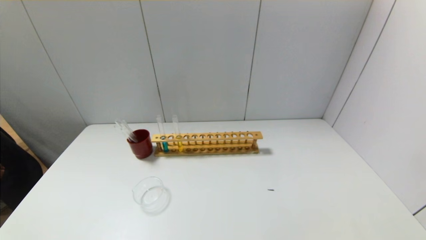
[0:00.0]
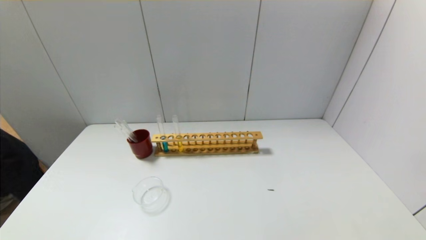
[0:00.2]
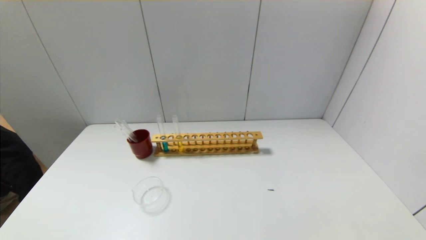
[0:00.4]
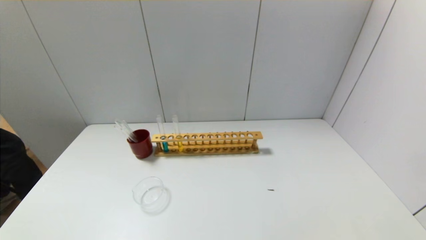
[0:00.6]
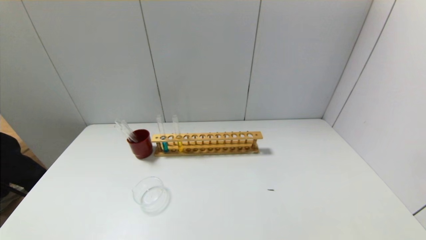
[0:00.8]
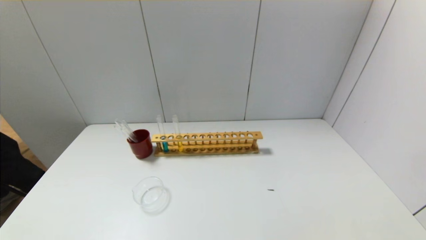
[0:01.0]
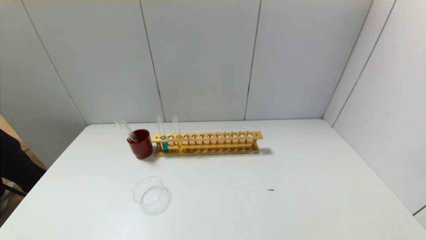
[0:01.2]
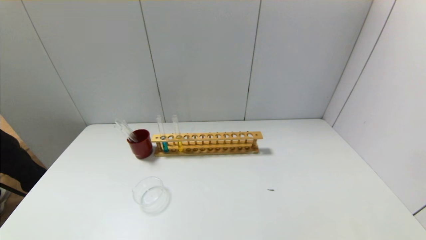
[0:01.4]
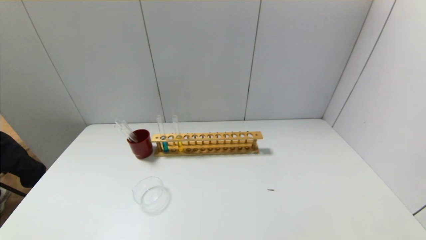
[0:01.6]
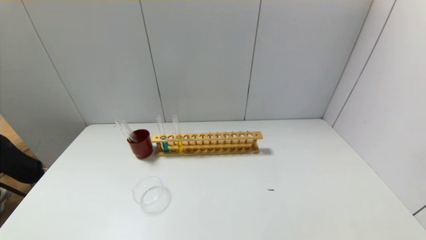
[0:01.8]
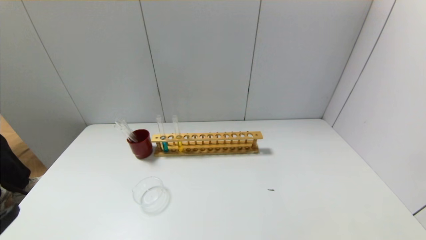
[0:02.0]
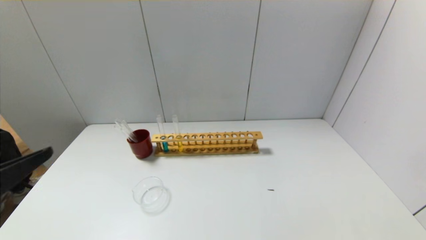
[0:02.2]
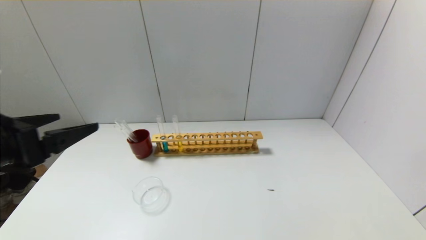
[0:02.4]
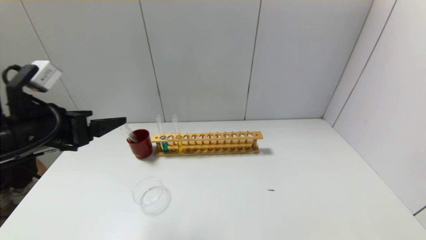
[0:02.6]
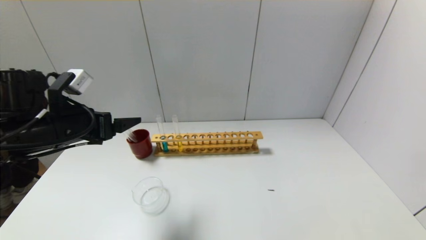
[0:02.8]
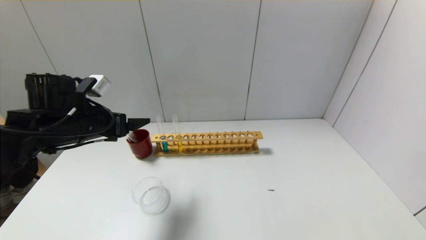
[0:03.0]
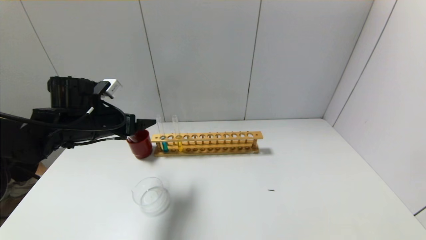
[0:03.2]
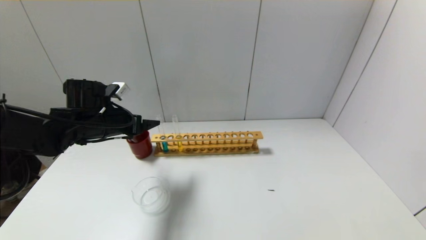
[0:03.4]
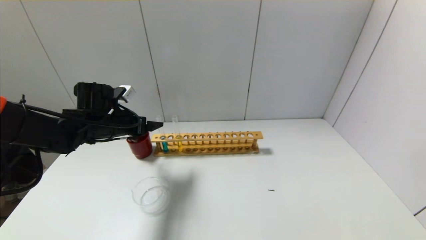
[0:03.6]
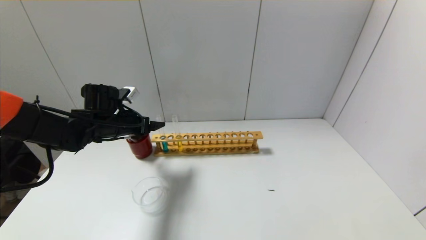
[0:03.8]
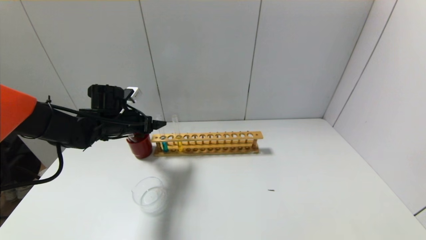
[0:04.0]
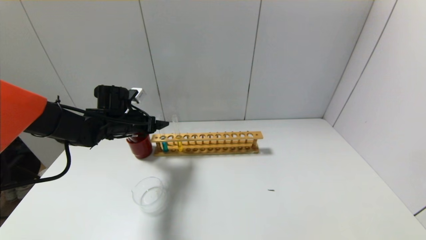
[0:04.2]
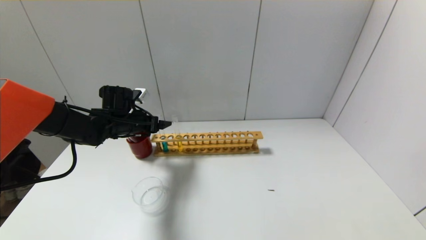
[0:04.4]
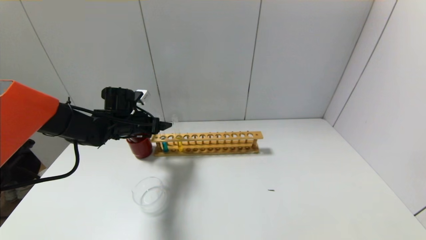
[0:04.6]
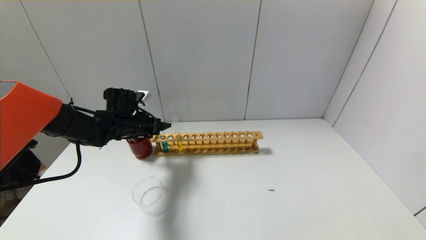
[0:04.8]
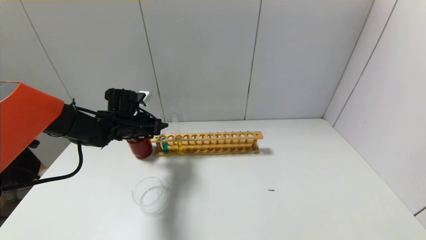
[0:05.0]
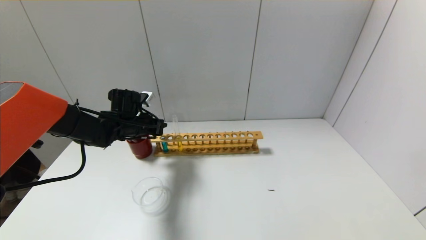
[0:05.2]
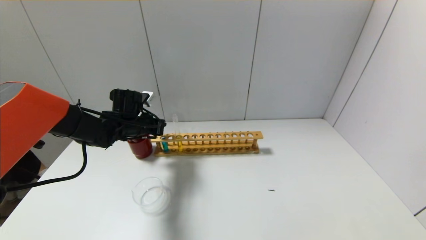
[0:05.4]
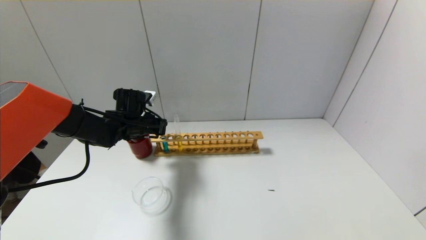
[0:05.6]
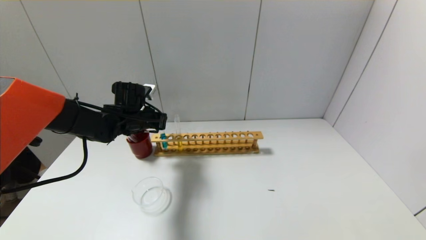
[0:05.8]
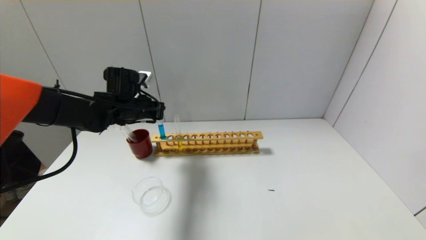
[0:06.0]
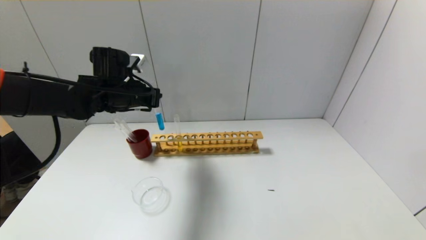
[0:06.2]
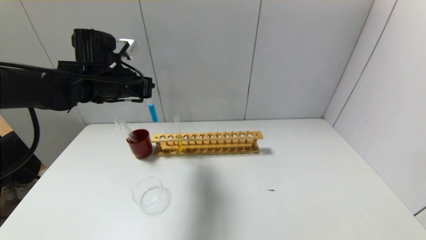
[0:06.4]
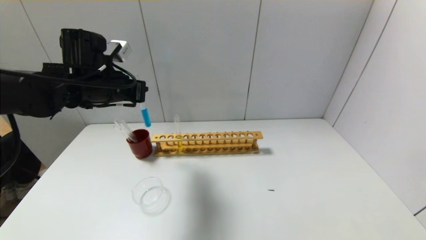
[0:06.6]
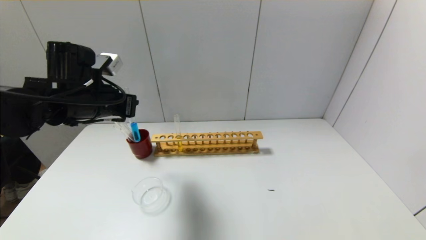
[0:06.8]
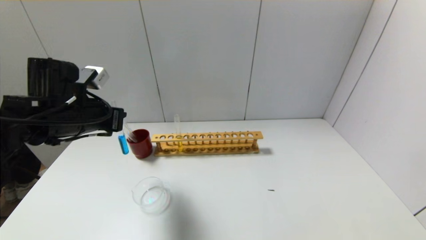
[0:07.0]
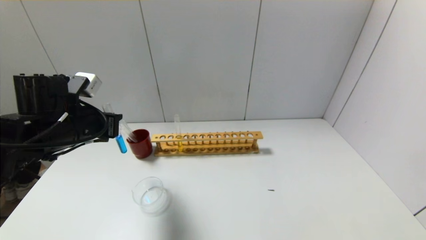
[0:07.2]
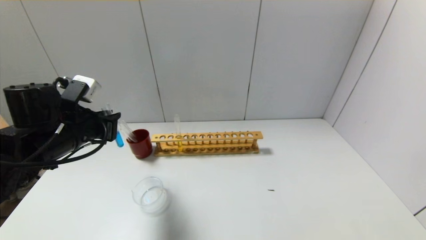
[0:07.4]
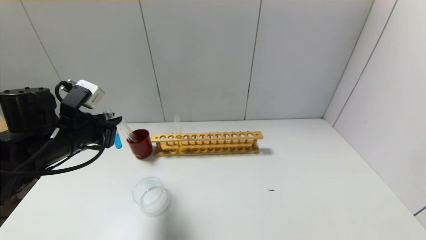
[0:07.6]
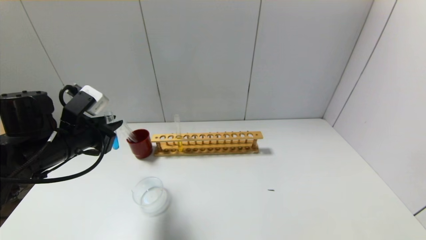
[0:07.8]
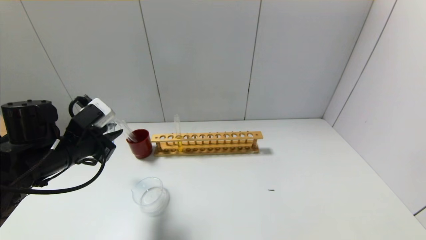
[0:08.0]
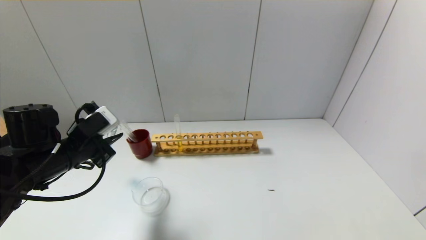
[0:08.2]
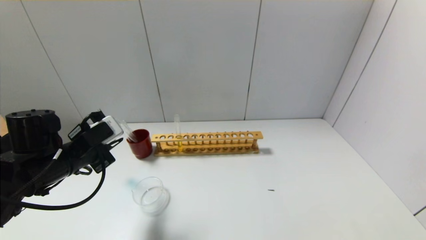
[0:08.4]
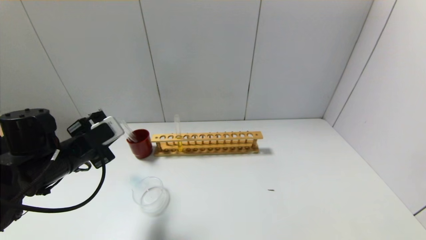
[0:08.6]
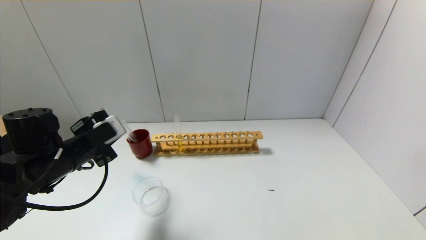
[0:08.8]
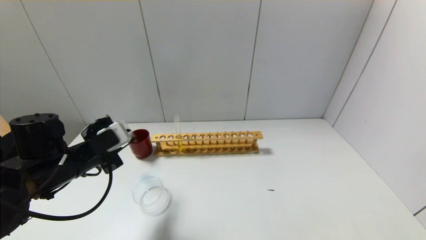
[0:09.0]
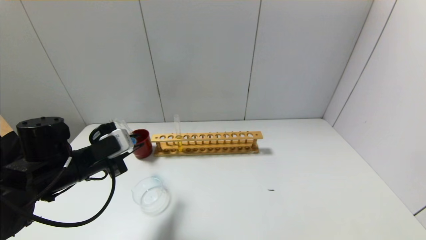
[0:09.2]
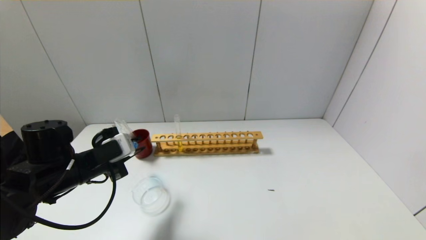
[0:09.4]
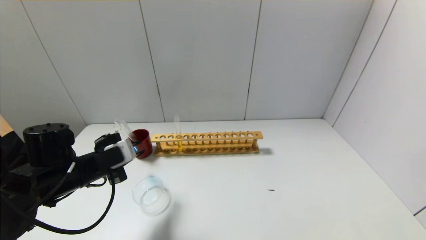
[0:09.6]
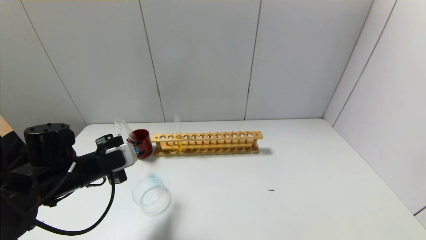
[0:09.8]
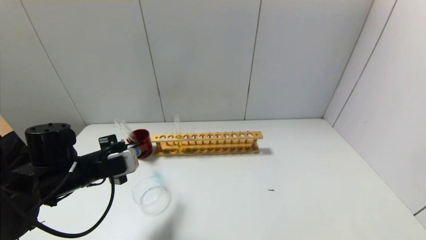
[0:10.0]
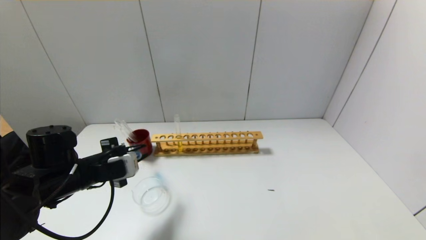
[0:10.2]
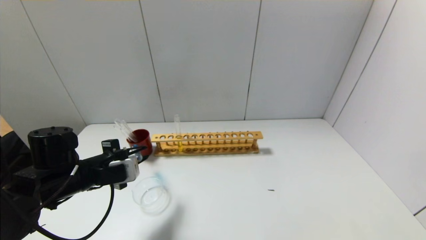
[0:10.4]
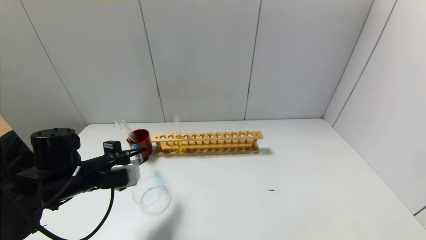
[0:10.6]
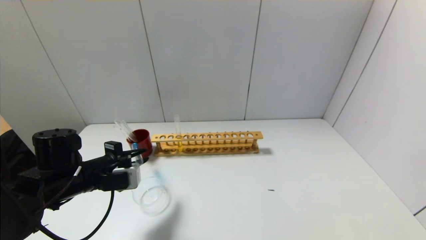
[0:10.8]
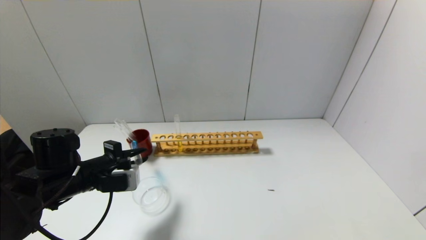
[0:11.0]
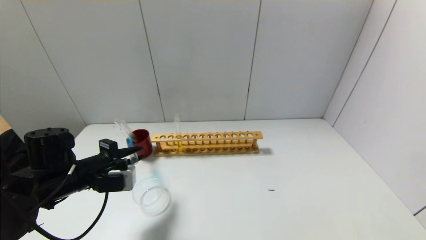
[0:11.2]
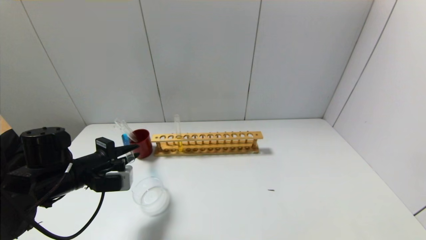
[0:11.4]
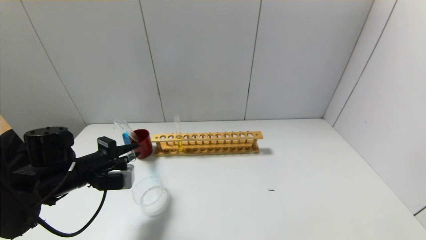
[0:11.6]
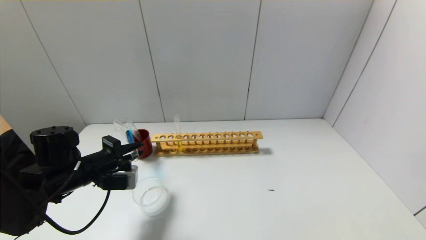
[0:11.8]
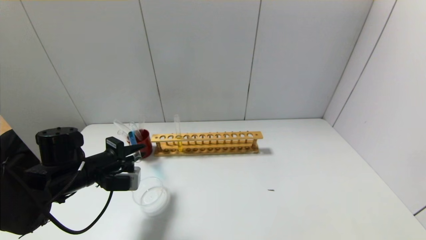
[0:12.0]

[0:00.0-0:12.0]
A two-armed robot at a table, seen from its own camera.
Step, 0:00.0 to 0:05.2: Grasp the blue reagent with the left gripper.
0:00.0 to 0:01.6: The left gripper moves roughly 5 cm.
0:01.6 to 0:03.0: The left gripper is displaced forward by approximately 35 cm.
0:03.0 to 0:04.4: The left gripper moves forward and downward, some 15 cm.
0:04.4 to 0:06.0: The left gripper moves upward, approximately 5 cm, and closes its fingers.
0:06.0 to 0:07.6: The left gripper heads backward and to the left, covering approximately 15 cm.

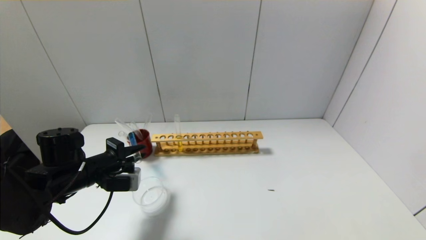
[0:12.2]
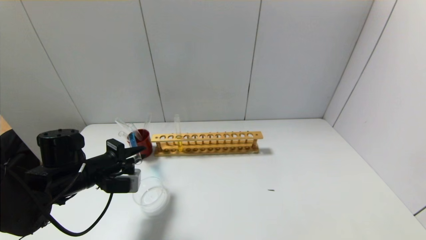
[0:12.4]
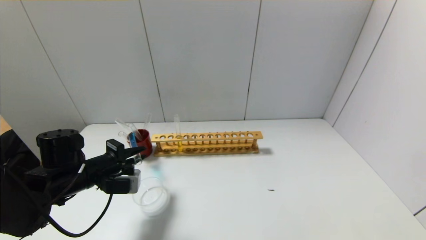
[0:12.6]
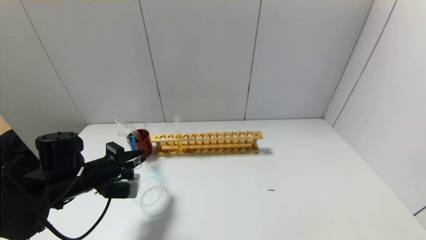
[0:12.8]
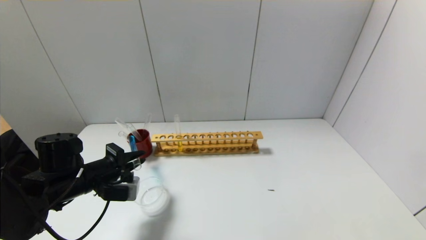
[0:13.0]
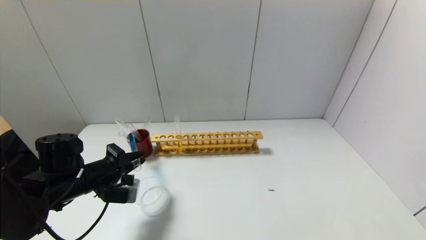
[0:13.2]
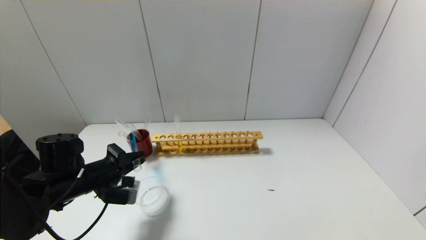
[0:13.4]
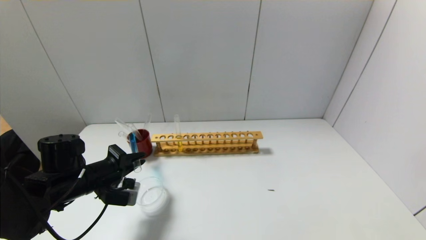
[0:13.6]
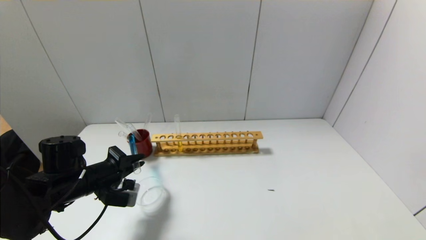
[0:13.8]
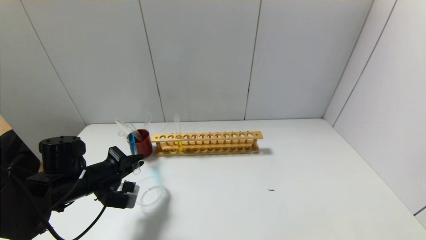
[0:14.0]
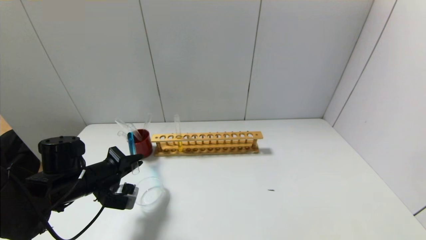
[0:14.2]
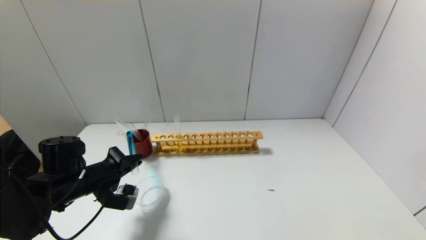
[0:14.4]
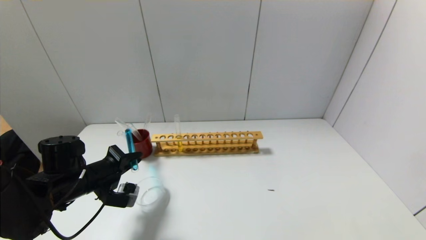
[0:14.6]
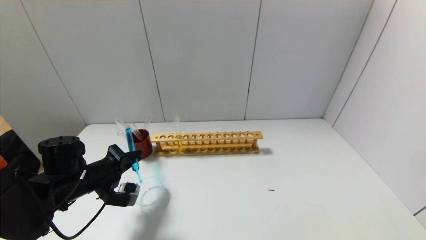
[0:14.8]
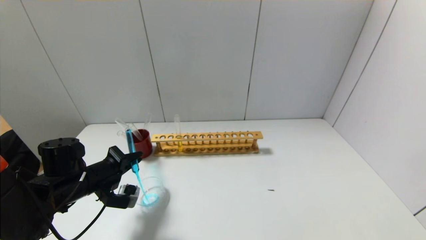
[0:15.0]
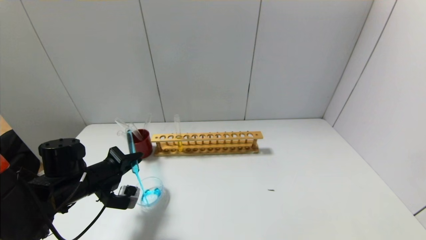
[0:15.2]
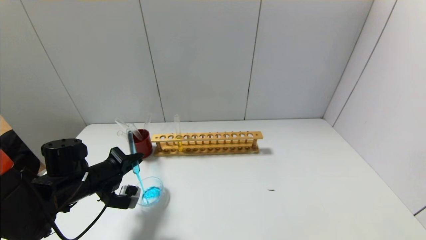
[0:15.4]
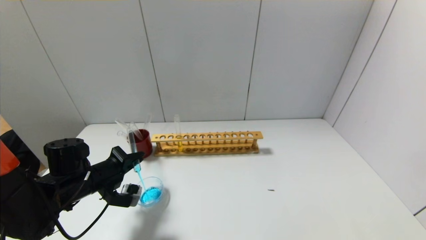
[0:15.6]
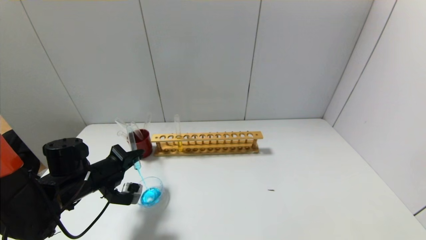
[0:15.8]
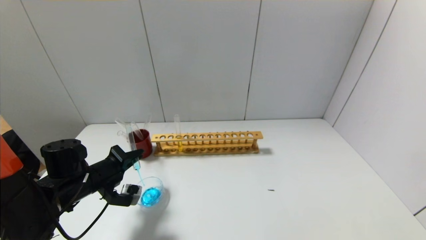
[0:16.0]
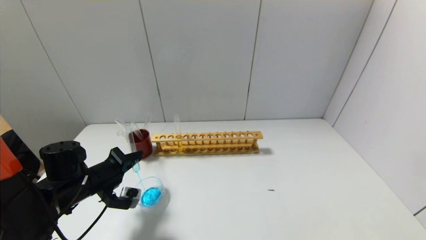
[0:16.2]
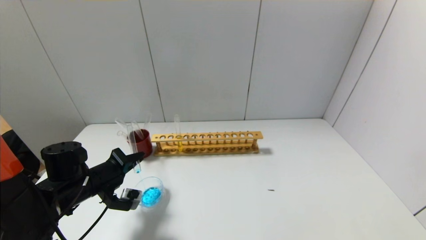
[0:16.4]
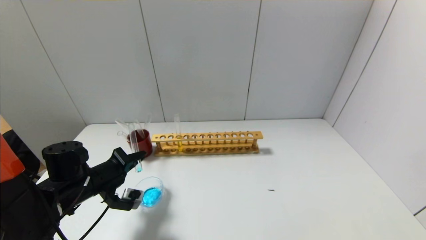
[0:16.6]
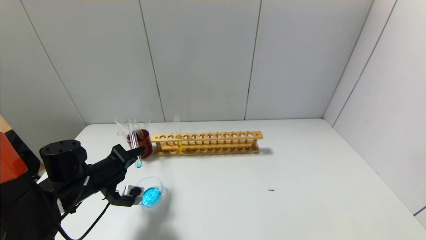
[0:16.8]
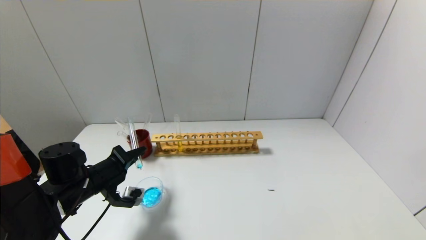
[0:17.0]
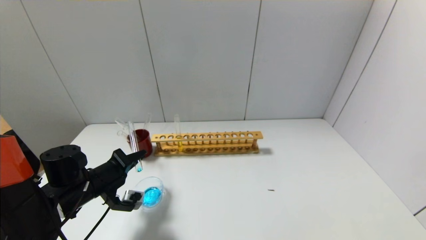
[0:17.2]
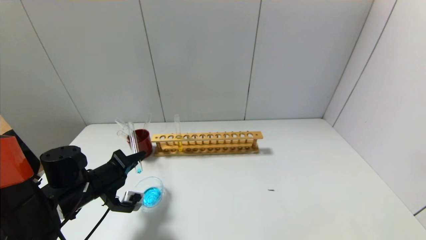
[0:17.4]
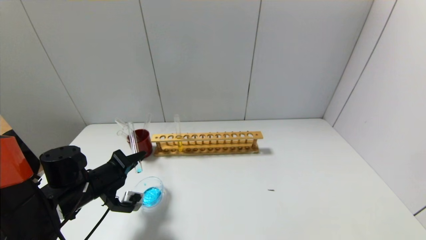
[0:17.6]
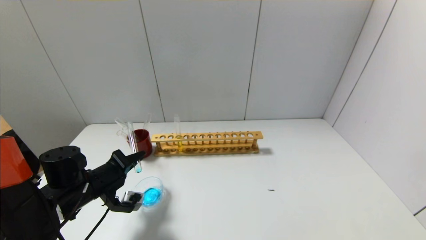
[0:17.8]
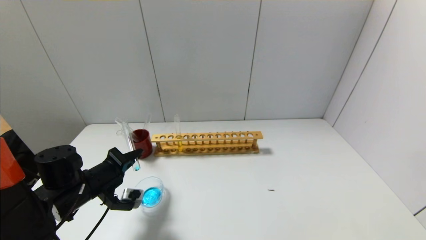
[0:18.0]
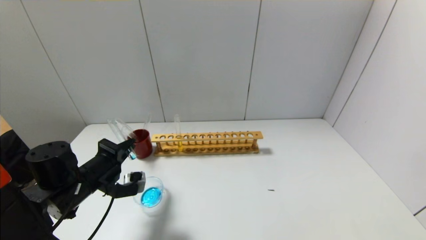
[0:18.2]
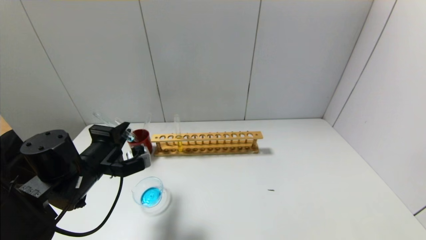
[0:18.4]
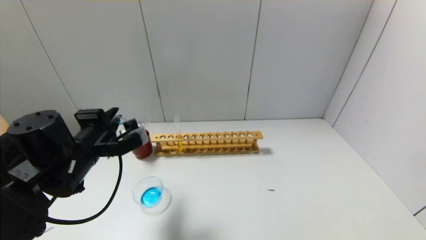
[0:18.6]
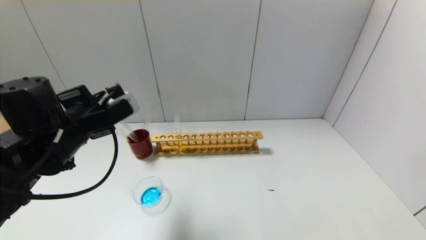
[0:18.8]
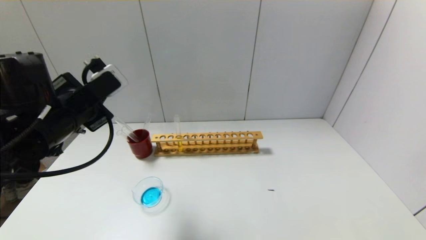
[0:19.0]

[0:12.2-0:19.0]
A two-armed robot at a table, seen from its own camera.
Step, 0:12.2 to 0:18.2: Pour the blue reagent into the graduated cylinder with the left gripper.
0:12.2 to 0:13.6: The grippers move only a little.
0:13.6 to 0:16.2: There are only small adjustments of the grippers.
0:16.2 to 0:17.6: The grippers move only a little.
0:17.6 to 0:19.0: The left gripper is displaced upward by some 20 cm.
